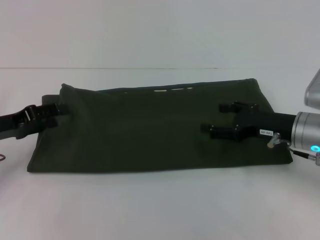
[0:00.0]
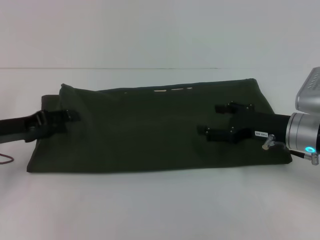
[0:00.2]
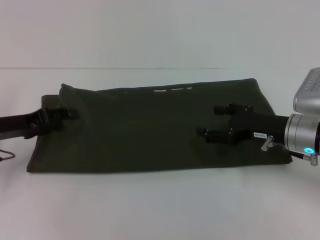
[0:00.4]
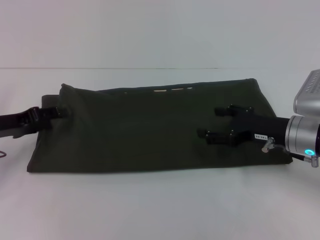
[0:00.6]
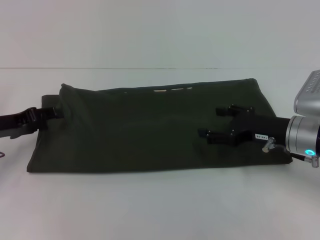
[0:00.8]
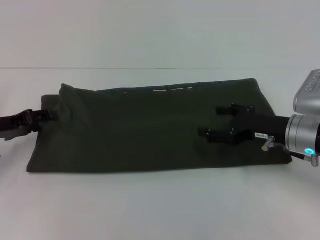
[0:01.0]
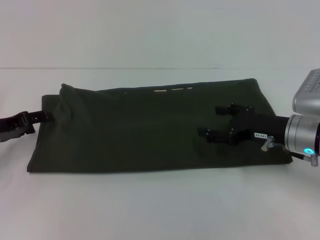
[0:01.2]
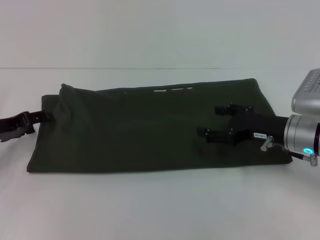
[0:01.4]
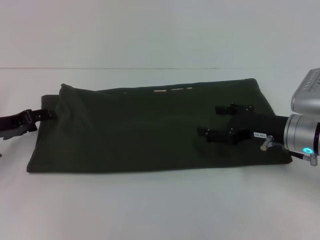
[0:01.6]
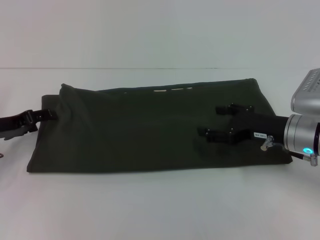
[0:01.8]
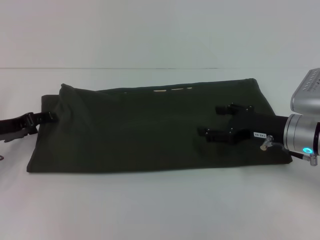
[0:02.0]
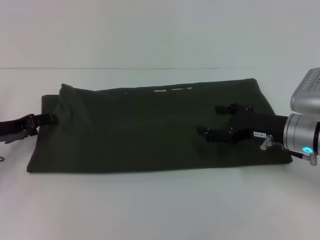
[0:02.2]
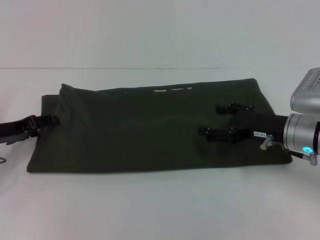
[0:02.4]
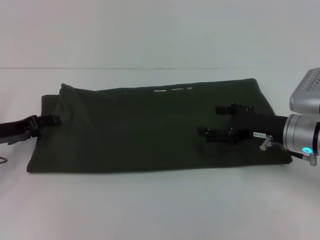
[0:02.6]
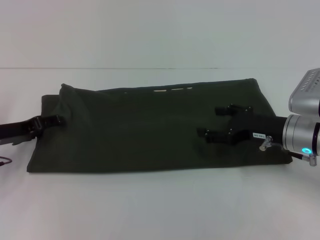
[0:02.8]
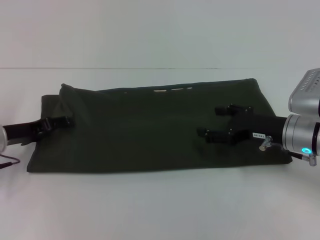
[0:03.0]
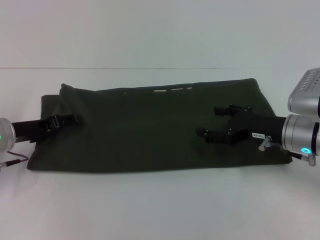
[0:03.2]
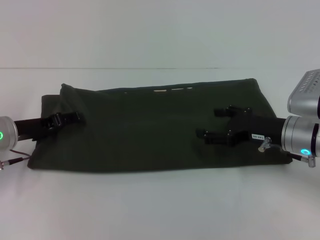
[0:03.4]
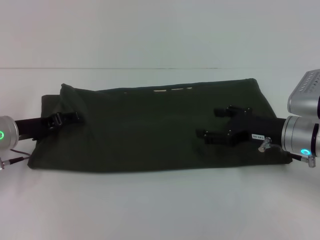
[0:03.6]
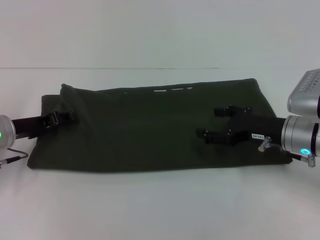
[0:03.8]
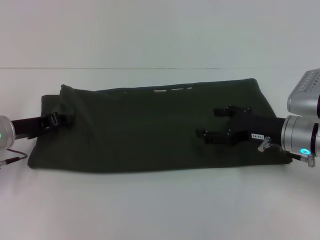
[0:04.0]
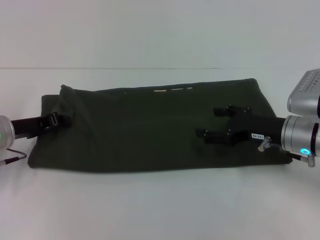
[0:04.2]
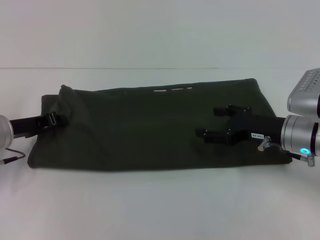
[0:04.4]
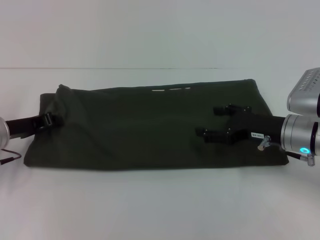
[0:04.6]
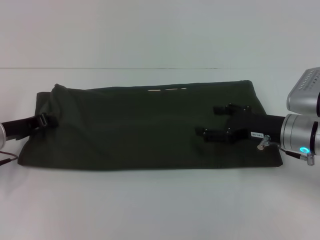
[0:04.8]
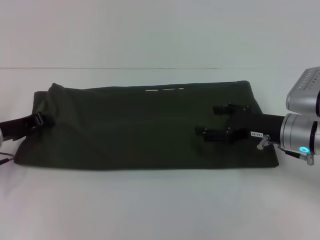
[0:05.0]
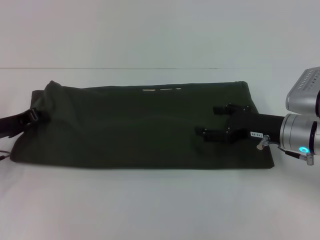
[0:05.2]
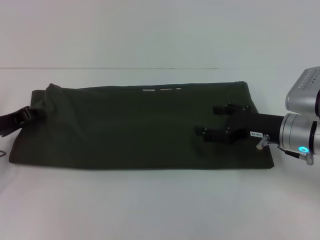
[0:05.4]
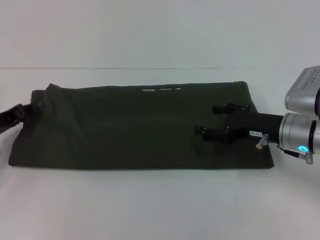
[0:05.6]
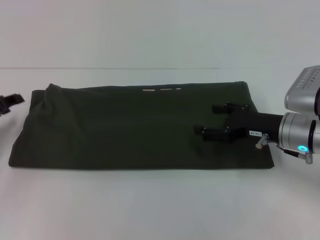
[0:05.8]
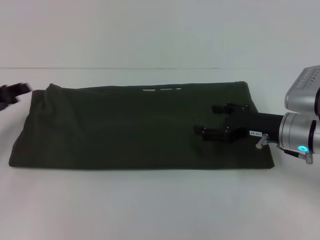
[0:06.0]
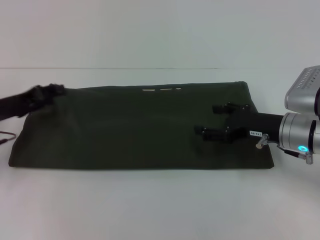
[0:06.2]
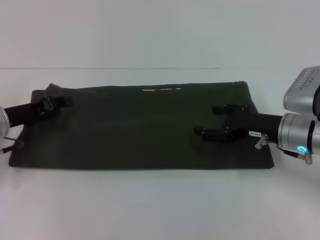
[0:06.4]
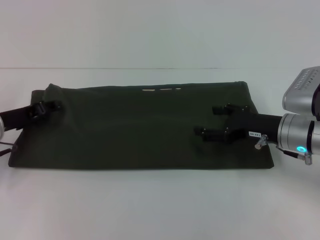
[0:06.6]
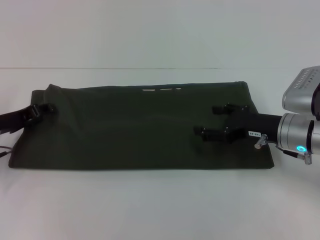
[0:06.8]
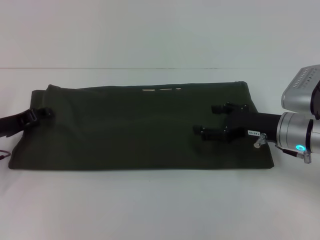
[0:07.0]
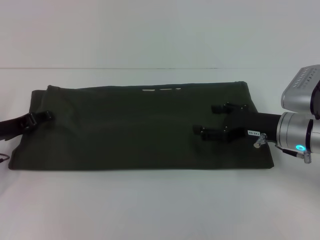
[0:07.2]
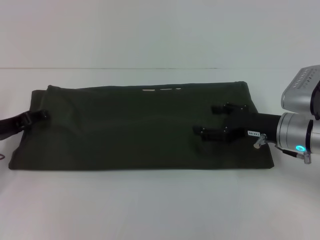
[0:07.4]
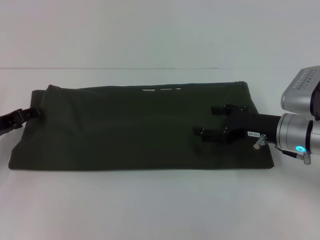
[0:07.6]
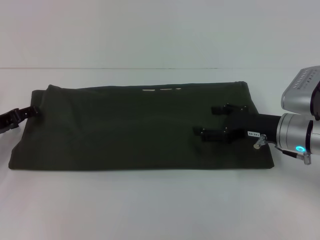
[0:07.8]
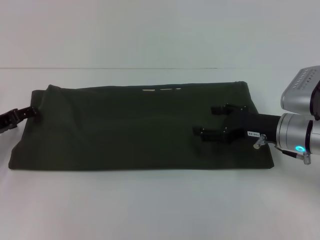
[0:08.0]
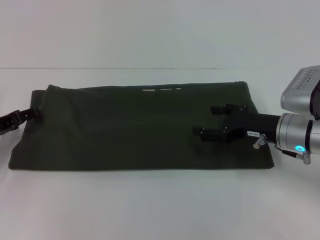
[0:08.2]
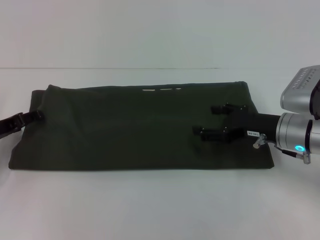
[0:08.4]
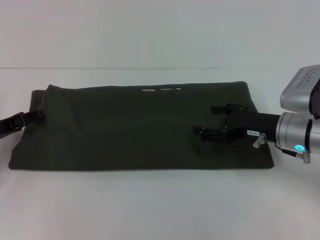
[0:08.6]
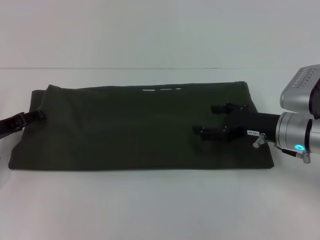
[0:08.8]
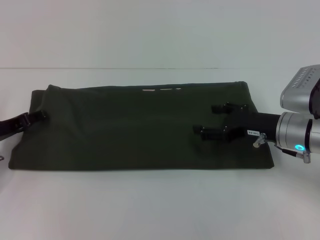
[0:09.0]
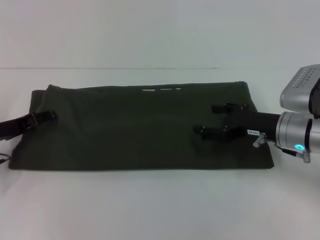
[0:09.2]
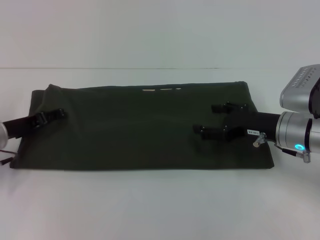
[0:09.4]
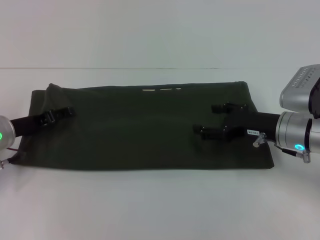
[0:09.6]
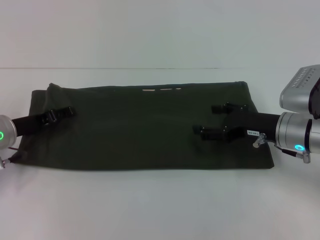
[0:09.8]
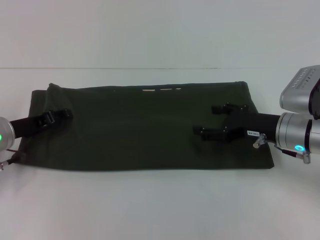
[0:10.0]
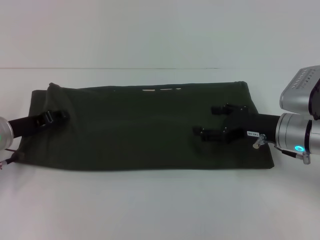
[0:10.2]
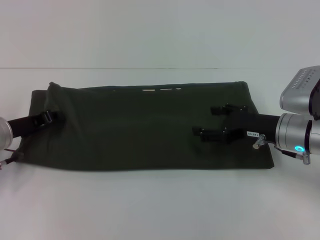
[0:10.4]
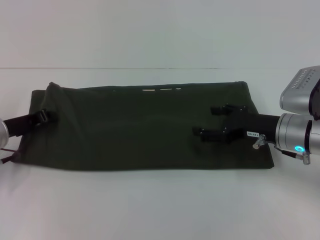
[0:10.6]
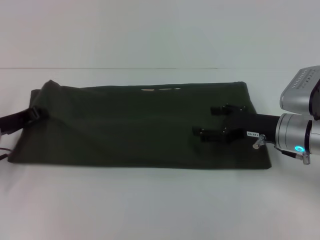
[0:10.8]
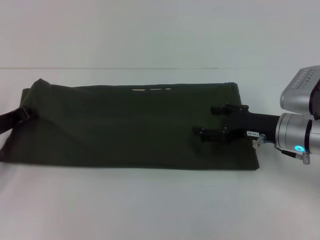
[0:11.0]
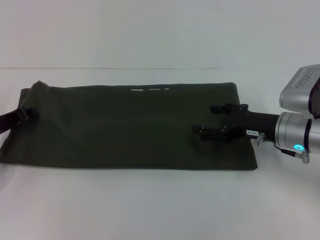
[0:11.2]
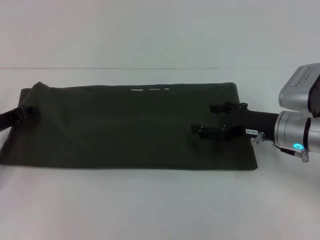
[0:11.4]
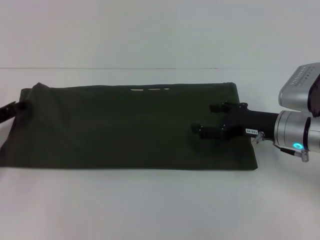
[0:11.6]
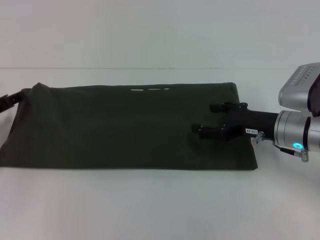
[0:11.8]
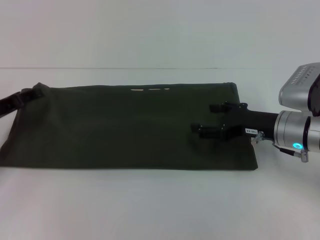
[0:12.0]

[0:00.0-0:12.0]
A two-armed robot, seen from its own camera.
0:00.0 to 0:03.0: There are only small adjustments of the grippers.
0:03.0 to 0:04.4: The left gripper closes up.
0:04.4 to 0:06.0: The left gripper moves to the left, roughly 5 cm, and opens up.
0:06.0 to 0:07.6: The grippers move only a little.
0:07.6 to 0:09.0: Neither gripper changes place.
0:09.0 to 0:10.4: The grippers make only small movements.
0:10.4 to 0:12.0: The left gripper closes, then opens again.

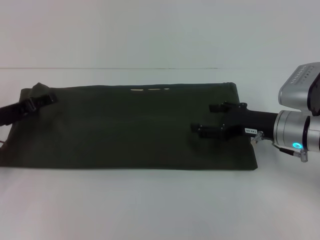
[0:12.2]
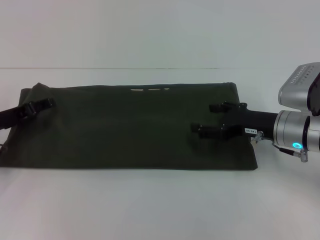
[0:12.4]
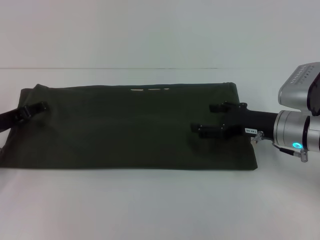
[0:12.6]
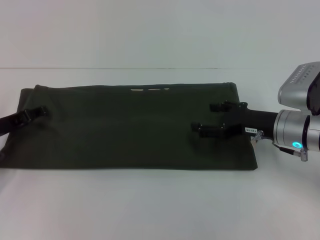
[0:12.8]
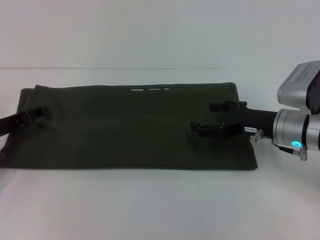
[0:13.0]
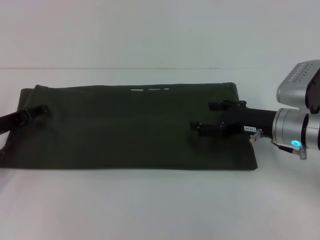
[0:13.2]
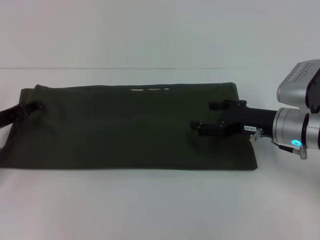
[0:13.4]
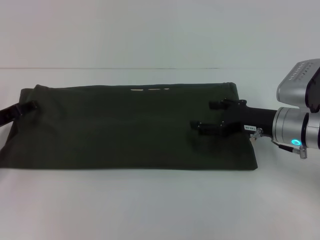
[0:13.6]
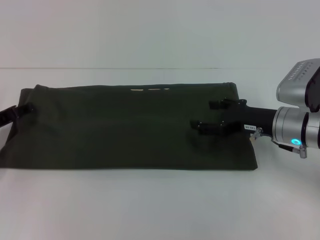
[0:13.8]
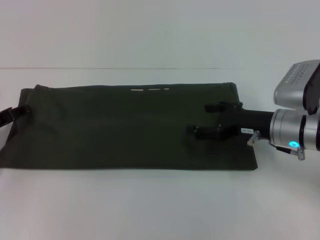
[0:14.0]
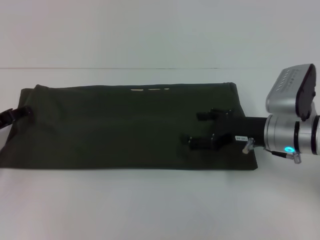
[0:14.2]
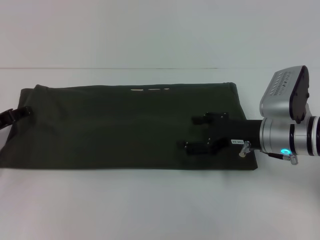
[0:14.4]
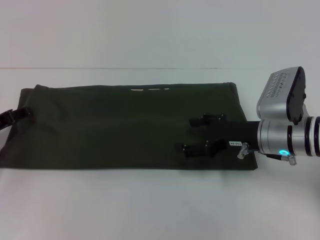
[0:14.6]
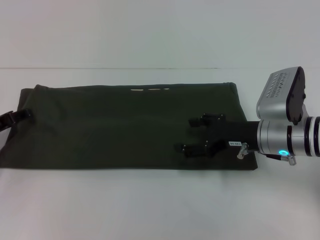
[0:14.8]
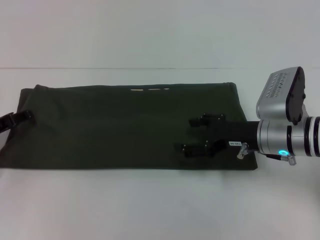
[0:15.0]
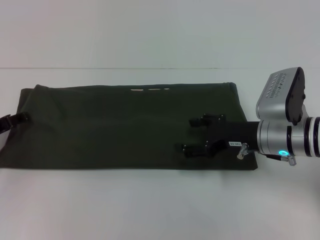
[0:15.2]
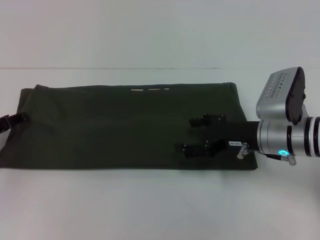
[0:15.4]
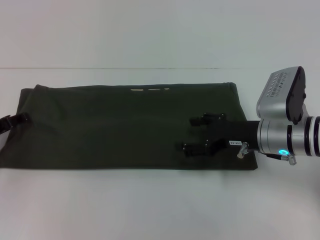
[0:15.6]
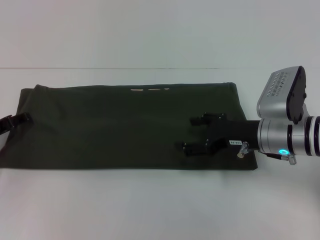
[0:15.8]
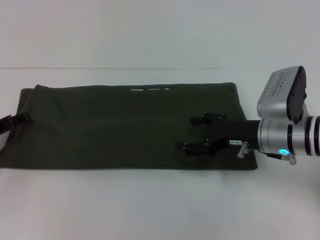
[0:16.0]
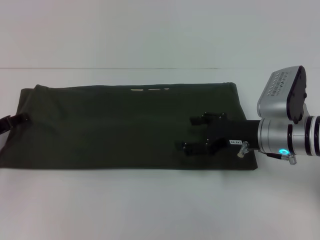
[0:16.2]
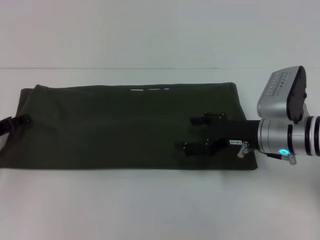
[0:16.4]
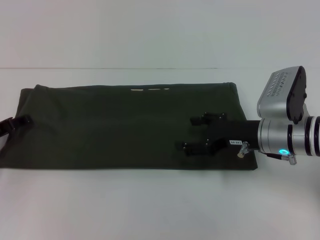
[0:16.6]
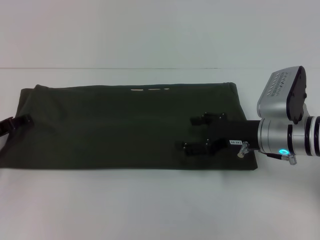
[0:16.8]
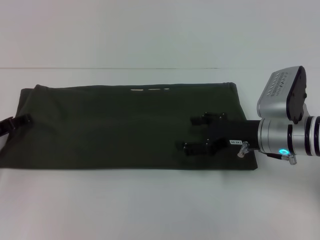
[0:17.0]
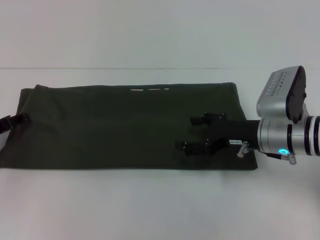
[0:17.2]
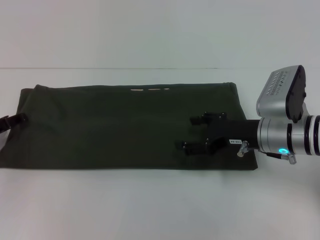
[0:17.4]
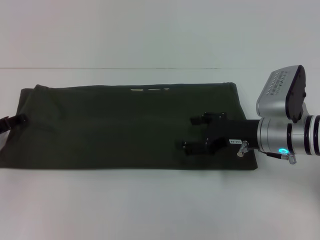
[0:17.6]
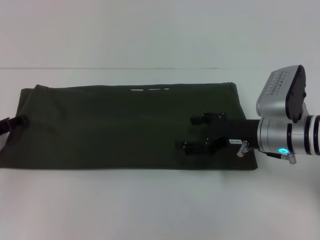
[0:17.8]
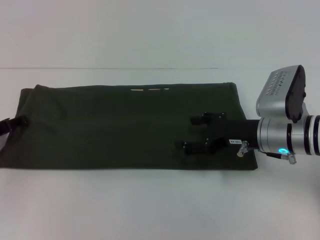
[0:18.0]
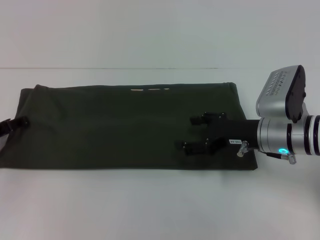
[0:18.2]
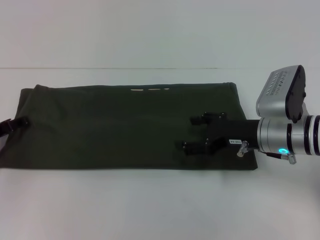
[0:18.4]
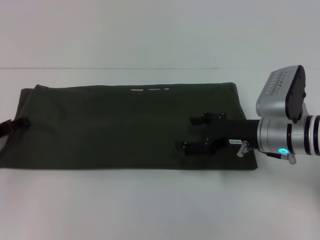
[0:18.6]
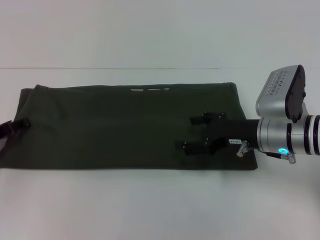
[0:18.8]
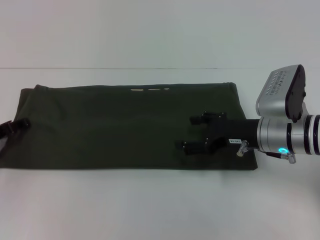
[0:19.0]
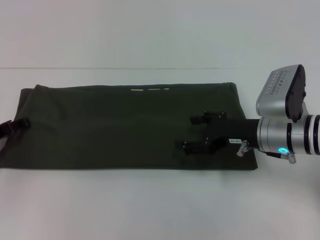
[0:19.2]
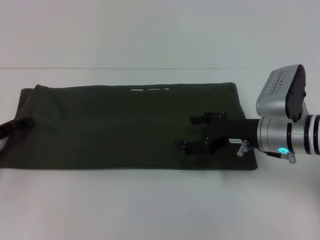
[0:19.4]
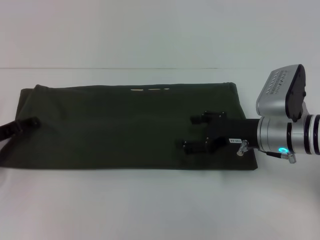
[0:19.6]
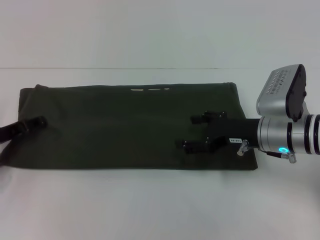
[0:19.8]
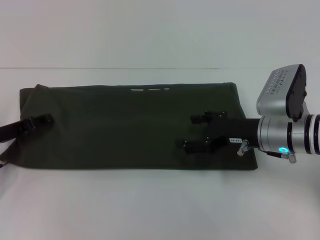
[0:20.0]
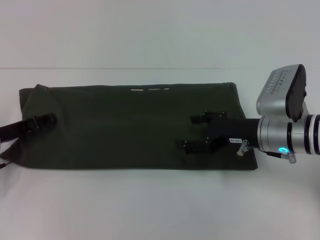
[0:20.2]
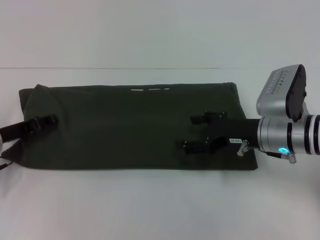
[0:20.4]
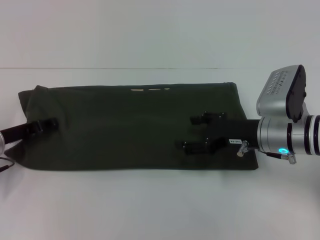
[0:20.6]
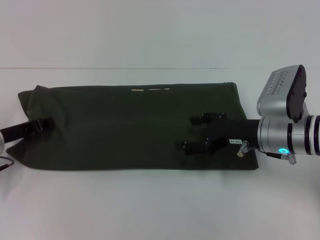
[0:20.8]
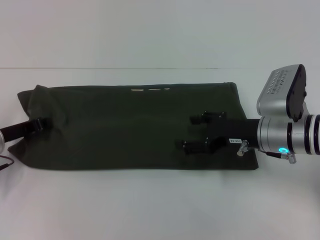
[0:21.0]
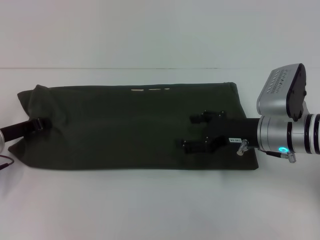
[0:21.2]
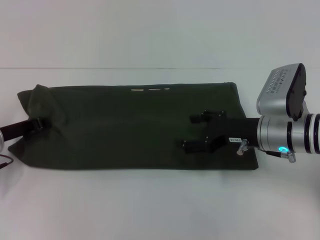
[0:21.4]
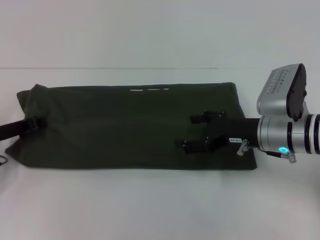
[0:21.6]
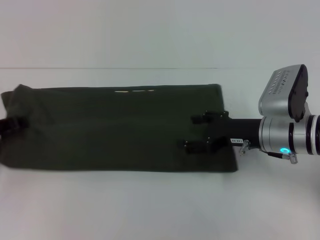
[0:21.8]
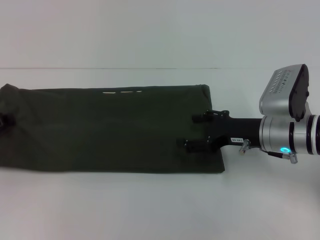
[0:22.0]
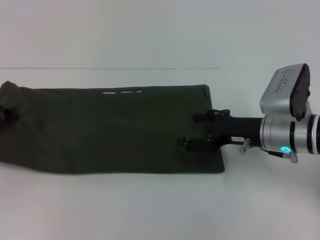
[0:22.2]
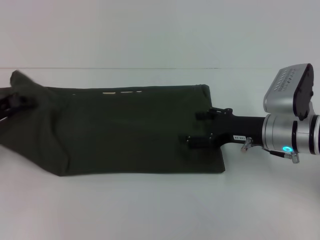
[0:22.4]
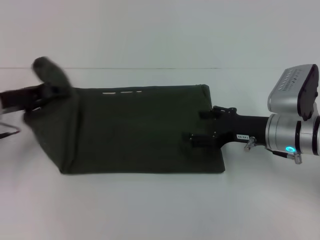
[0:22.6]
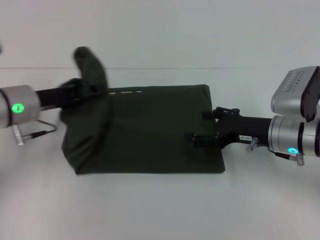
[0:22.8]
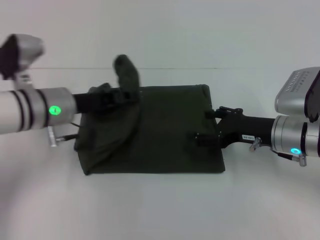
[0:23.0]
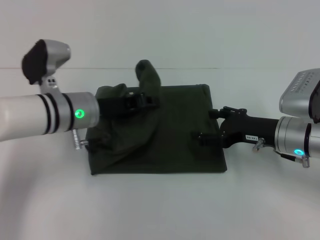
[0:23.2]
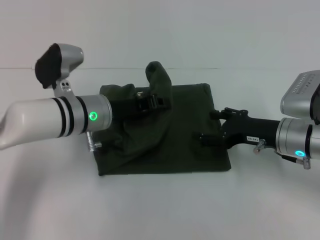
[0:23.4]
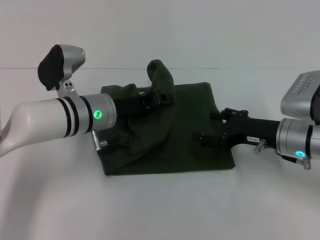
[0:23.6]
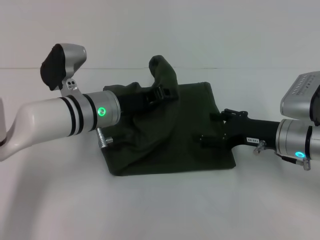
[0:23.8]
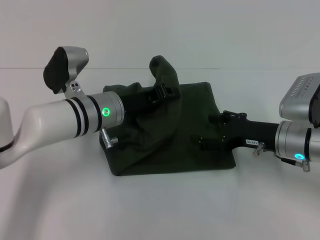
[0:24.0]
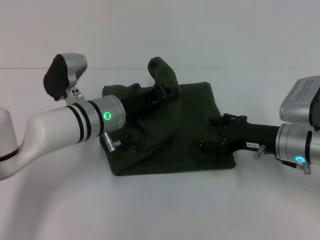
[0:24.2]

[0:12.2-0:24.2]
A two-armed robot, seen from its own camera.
0:12.2 to 0:15.2: The grippers stay close to where they were, moving slightly.
0:15.2 to 0:18.2: Both grippers stay about where they are.
0:18.2 to 0:19.8: The grippers make only small movements.
0:19.8 to 0:21.2: The left gripper closes.
0:21.2 to 0:22.6: The left gripper goes some 5 cm upward.
0:22.6 to 0:24.2: The left gripper is displaced to the right by about 20 cm.
